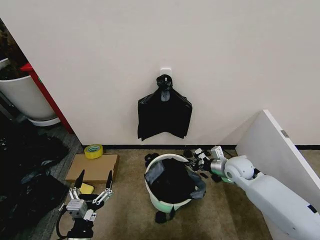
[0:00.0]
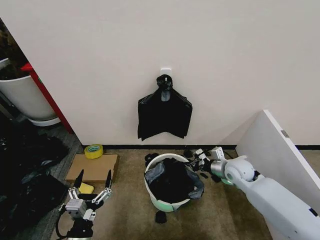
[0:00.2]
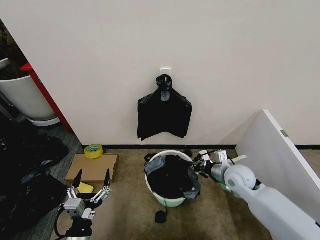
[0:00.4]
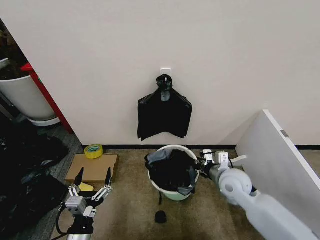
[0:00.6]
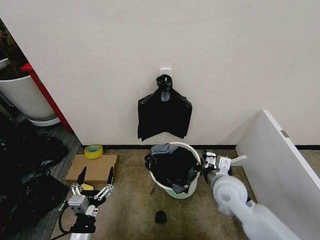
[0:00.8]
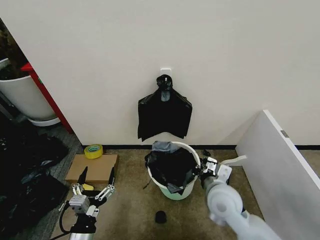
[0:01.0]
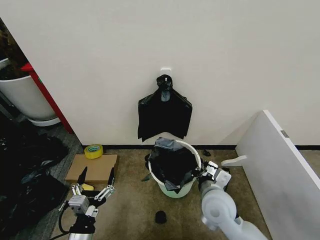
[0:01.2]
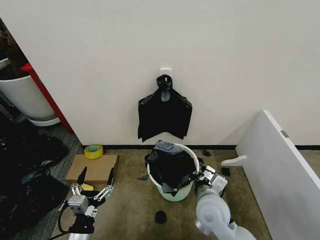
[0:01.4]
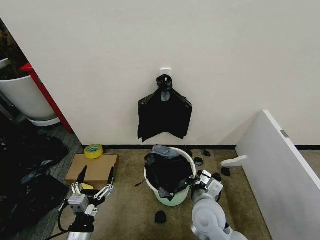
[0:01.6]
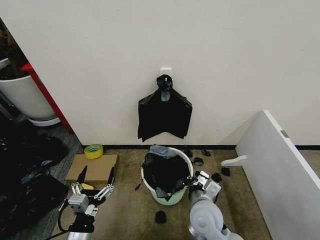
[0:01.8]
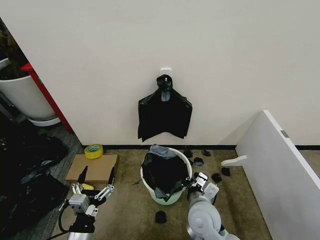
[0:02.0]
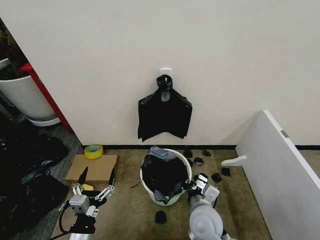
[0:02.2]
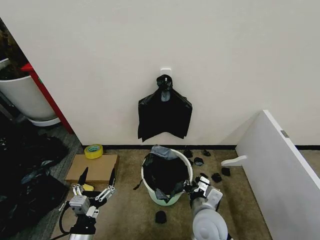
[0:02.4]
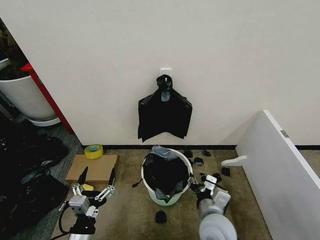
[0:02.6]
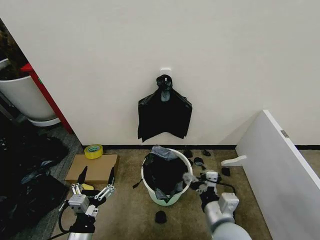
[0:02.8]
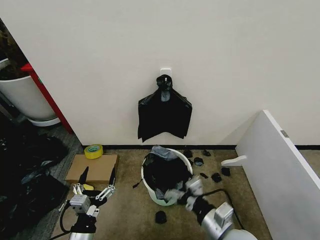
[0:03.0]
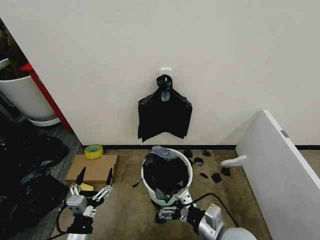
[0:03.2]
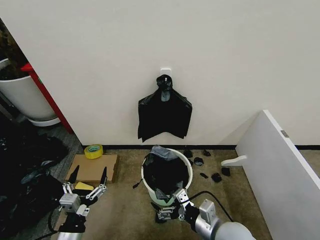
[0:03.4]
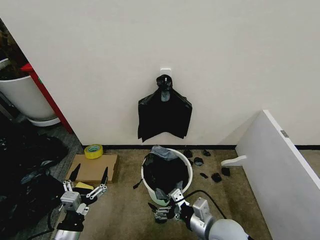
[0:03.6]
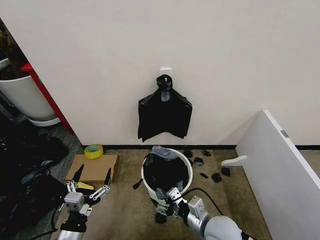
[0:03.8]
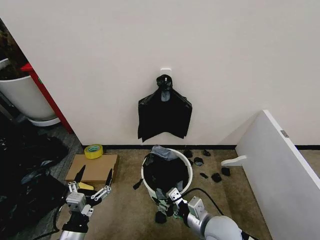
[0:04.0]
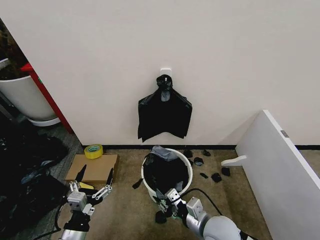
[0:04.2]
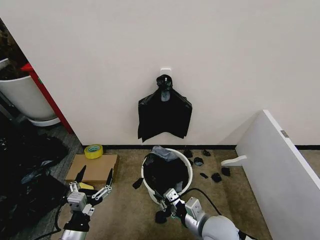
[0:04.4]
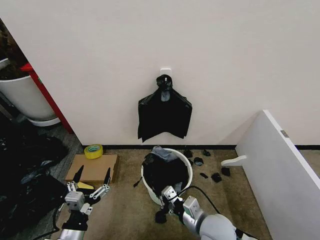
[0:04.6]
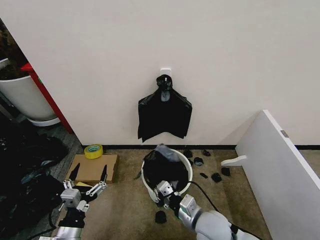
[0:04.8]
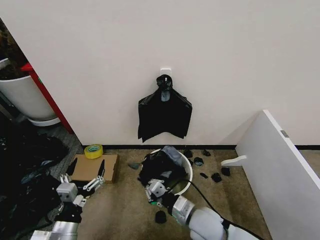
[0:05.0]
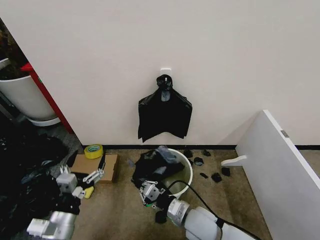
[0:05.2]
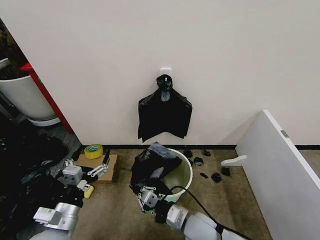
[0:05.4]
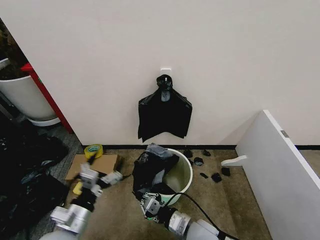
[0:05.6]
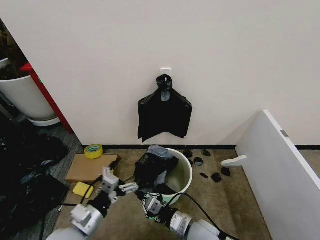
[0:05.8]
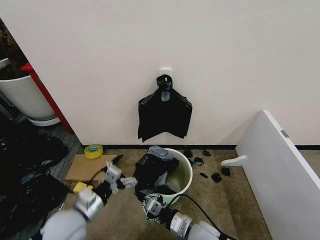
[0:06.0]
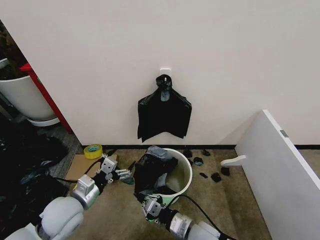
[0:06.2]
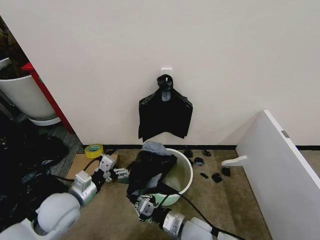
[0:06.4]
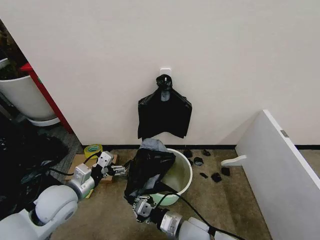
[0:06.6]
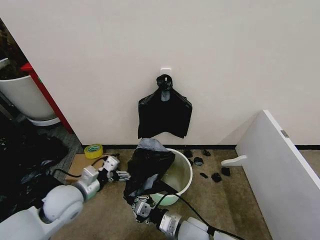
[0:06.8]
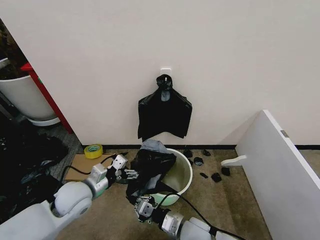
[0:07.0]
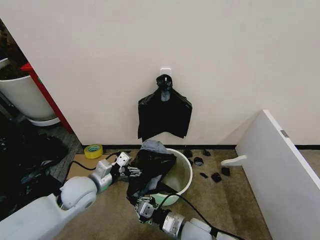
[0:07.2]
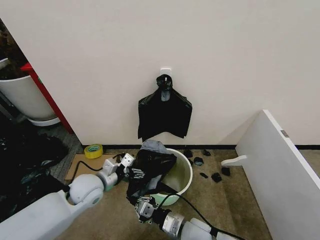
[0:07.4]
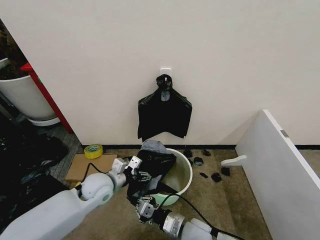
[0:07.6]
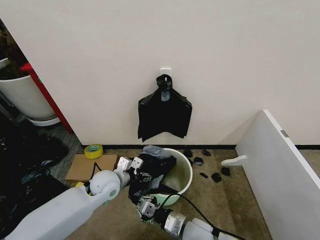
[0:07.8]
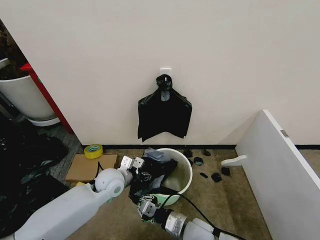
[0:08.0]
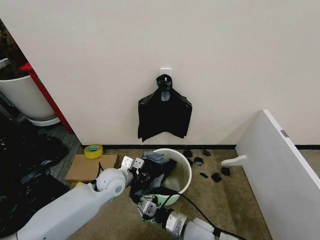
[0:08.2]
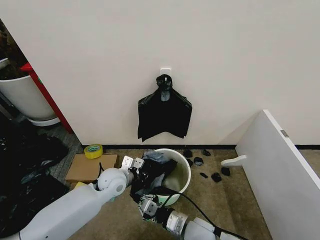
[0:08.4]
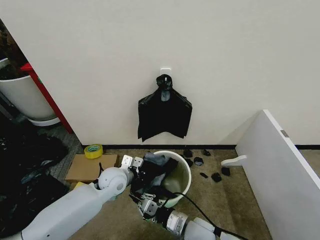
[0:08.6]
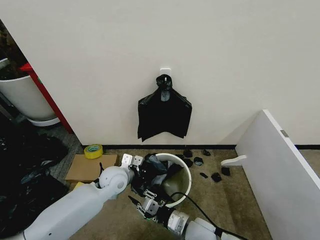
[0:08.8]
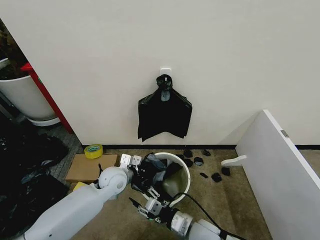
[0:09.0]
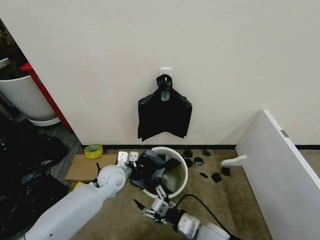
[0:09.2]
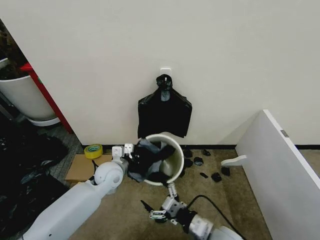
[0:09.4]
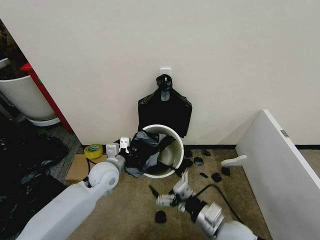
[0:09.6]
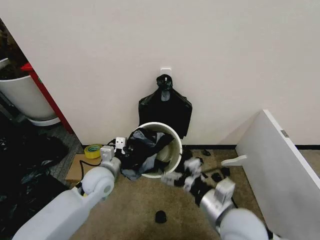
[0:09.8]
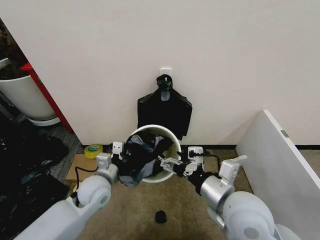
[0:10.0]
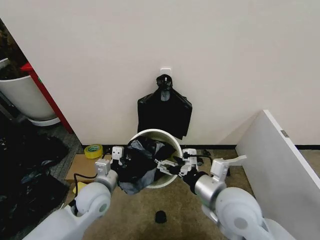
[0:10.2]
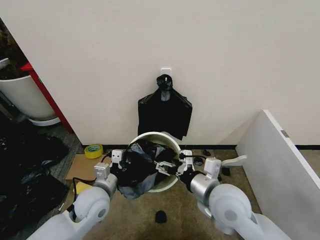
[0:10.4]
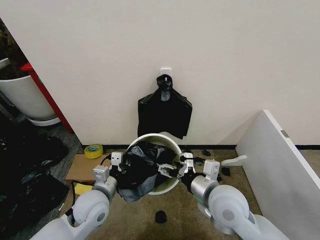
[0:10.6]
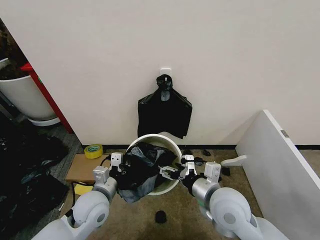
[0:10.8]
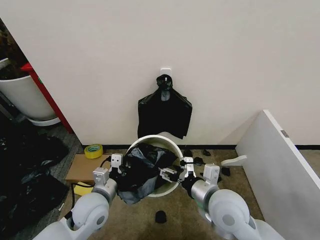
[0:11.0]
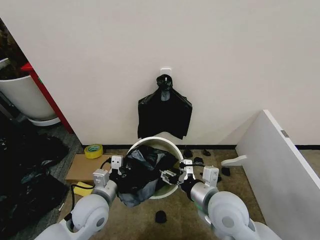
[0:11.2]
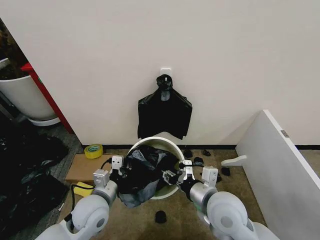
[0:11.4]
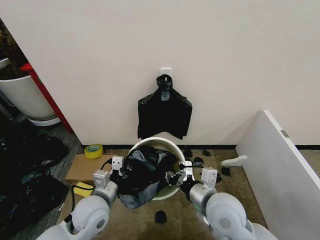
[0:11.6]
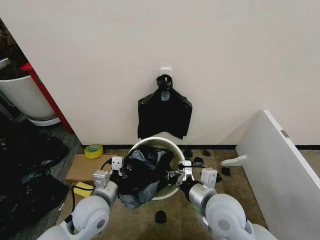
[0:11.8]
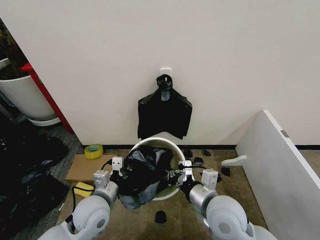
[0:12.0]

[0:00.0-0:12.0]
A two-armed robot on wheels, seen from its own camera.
Task of the whole recording: Place the garbage bag over the trash bin.
0:00.0 to 0:01.6: The right gripper shifts about 20 cm backward and to the left.
0:01.6 to 0:03.0: The right gripper is displaced backward and to the right by about 10 cm, and opens its fingers.
0:03.0 to 0:04.4: The right gripper ends up roughly 5 cm from where it was, and closes up.
0:04.4 to 0:06.0: The left gripper travels forward and upward by some 10 cm. The right gripper shifts by about 5 cm.
0:06.0 to 0:07.6: The left gripper travels forward by approximately 15 cm.
0:07.6 to 0:09.0: The left gripper moves approximately 5 cm, and closes up. Meanwhile the right gripper opens its fingers.
0:09.0 to 0:10.4: The left gripper heads backward, covering some 10 cm. The right gripper is displaced upward by roughly 15 cm, and opens.
0:10.4 to 0:12.0: The right gripper closes its fingers.

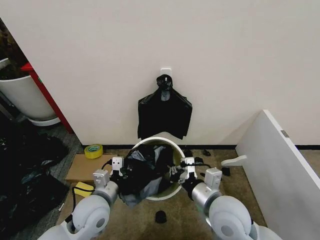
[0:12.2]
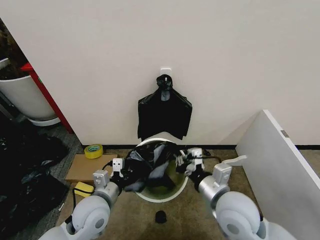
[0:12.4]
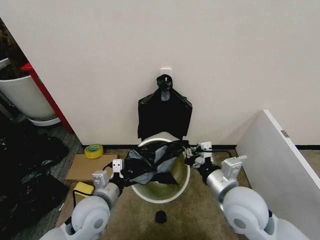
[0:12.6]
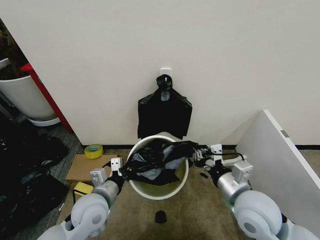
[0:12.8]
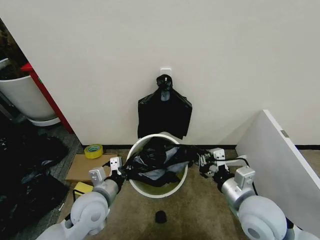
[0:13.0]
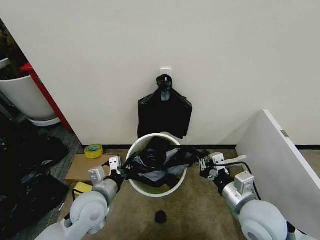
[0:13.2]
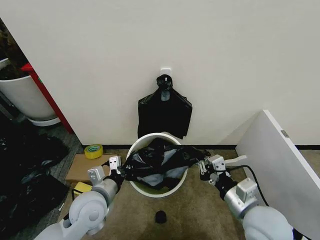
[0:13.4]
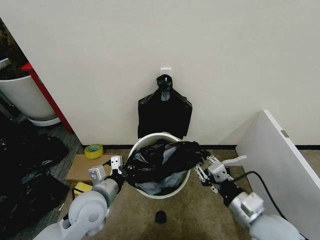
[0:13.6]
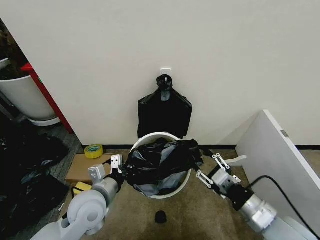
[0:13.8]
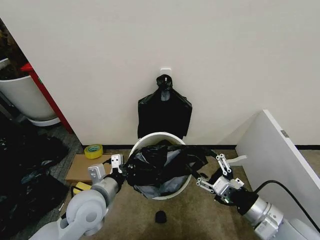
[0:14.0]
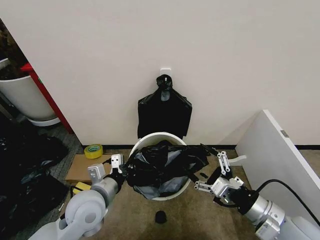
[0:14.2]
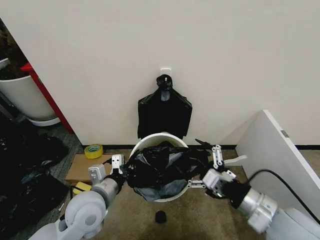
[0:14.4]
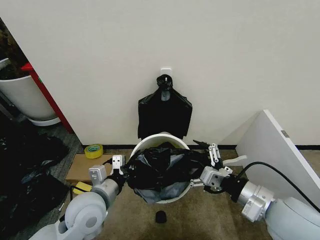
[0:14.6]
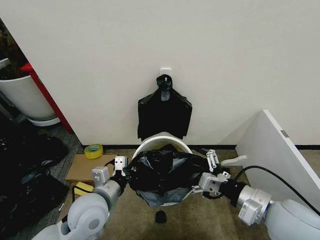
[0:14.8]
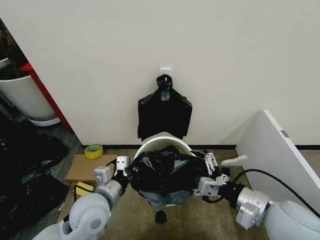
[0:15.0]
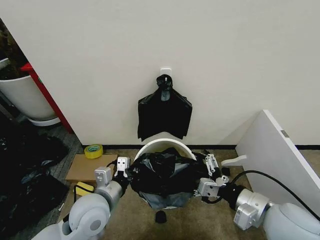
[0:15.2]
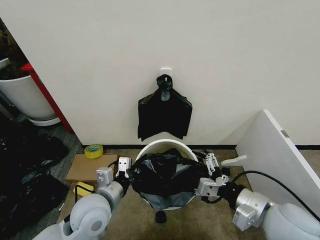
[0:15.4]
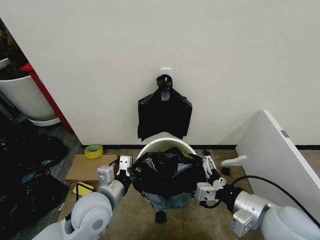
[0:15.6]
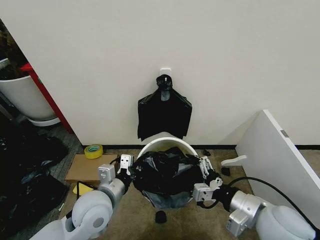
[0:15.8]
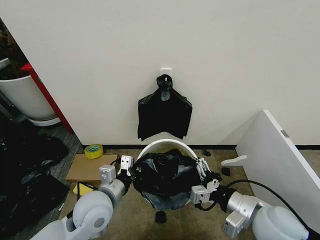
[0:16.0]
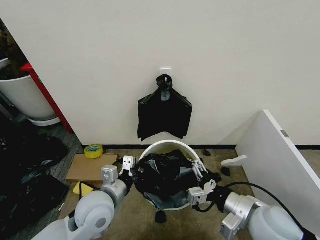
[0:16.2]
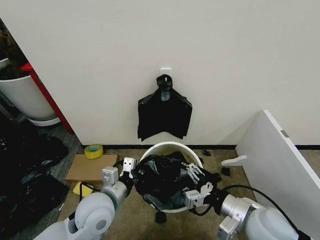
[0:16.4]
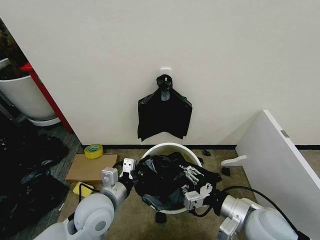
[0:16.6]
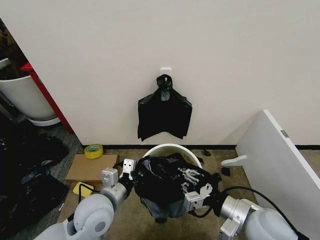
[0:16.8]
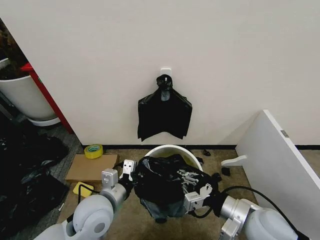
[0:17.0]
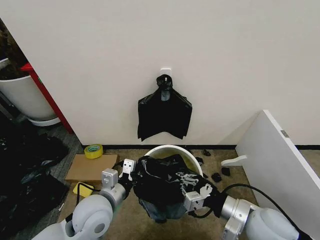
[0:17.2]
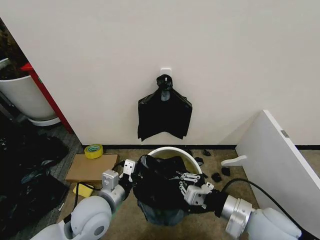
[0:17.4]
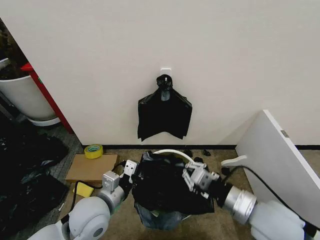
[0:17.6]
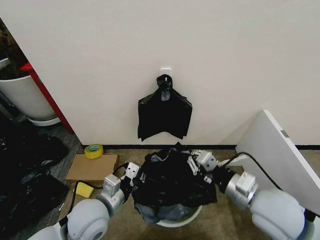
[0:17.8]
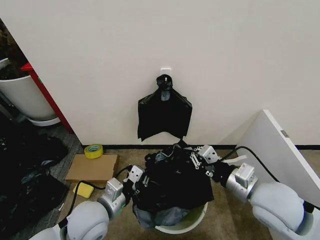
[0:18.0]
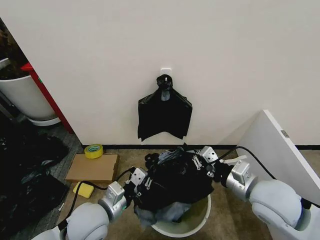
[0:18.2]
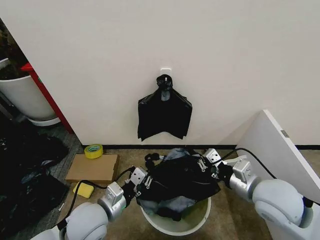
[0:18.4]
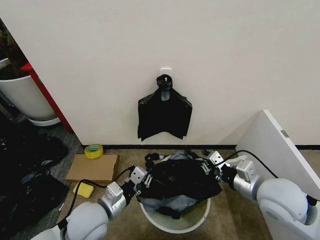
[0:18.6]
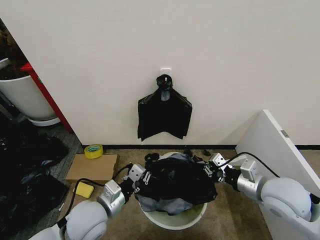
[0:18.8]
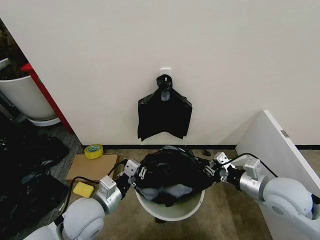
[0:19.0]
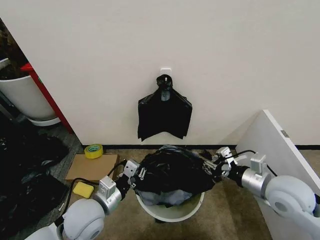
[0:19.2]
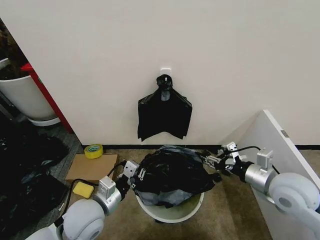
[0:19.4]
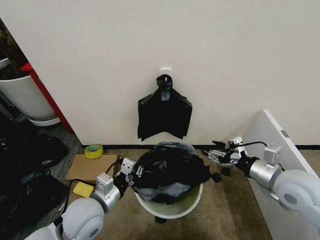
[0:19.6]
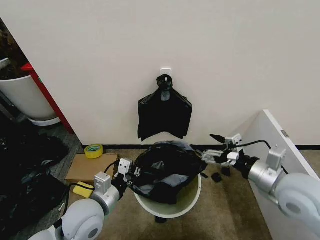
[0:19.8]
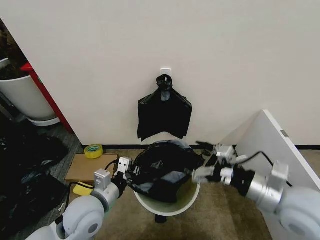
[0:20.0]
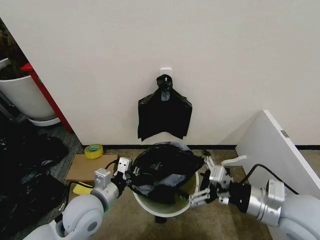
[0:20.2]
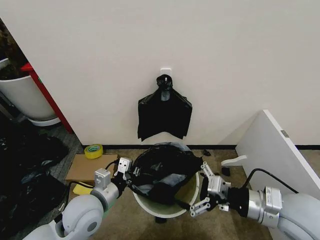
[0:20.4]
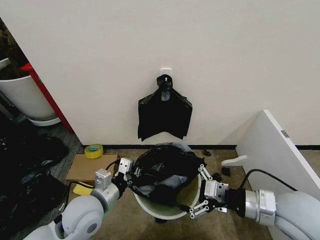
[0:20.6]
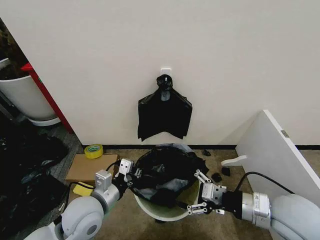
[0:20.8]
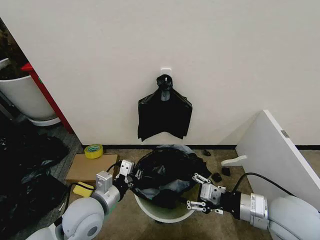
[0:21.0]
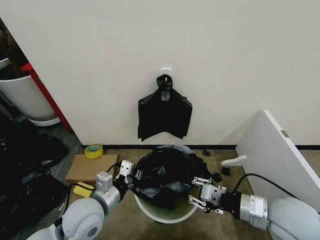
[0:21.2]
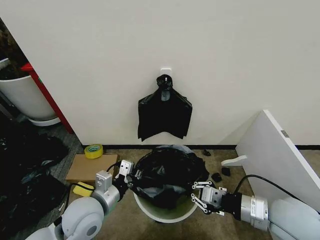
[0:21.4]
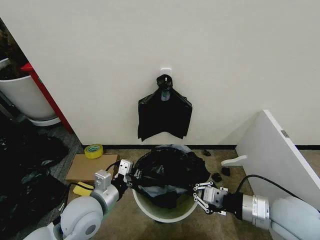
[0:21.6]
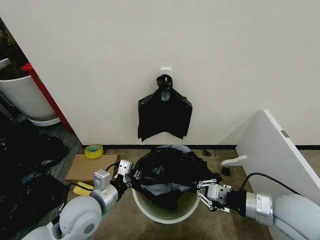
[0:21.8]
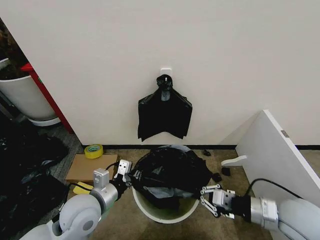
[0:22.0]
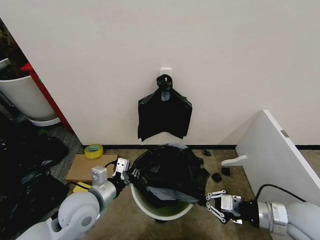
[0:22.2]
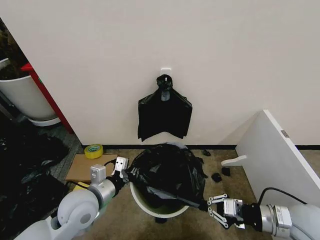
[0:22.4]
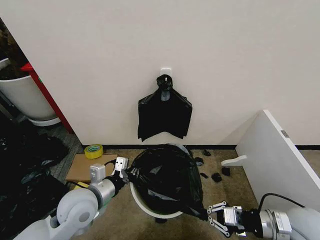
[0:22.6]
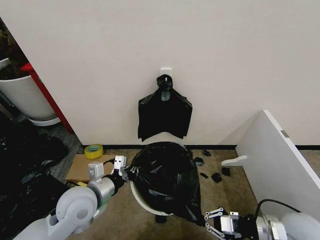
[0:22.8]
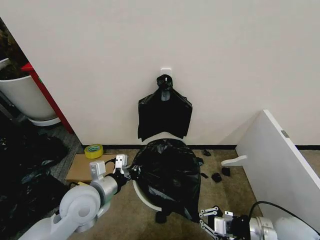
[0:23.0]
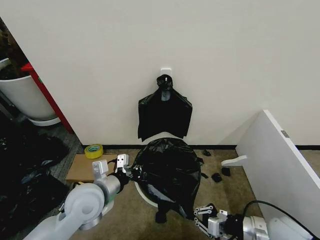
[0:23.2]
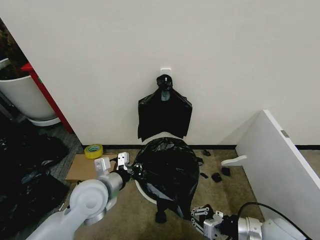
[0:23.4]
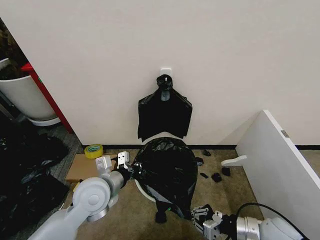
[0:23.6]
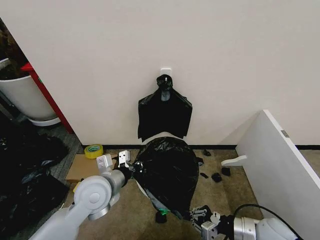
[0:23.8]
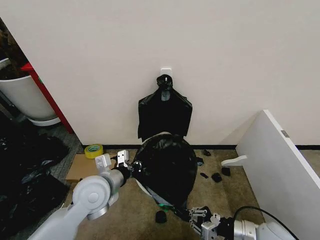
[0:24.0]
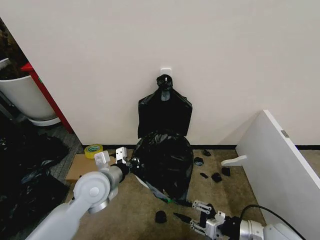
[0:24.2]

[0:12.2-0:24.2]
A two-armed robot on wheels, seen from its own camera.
Task of the whole recording: Place the garbage bag over the trash bin.
0:12.2 to 0:13.8: The right gripper heads to the right, covering some 10 cm, and opens up.
0:13.8 to 0:15.2: The right gripper opens.
0:15.2 to 0:16.6: The right gripper closes.
0:16.6 to 0:18.2: The right gripper heads forward, covering roughly 5 cm, and closes.
0:18.2 to 0:19.8: The right gripper heads to the right, covering approximately 5 cm, and opens.
0:19.8 to 0:21.2: The right gripper shifts by about 5 cm, and closes its fingers.
0:21.2 to 0:22.6: The right gripper travels to the right and downward by approximately 10 cm.
0:22.6 to 0:24.2: The right gripper is displaced downward by approximately 5 cm.
